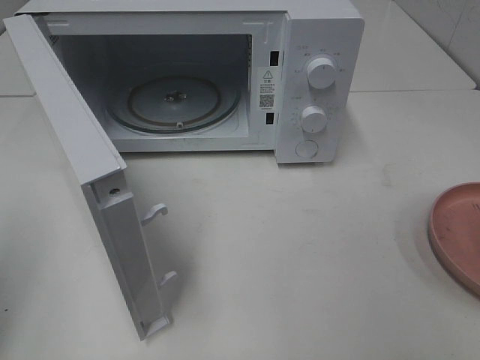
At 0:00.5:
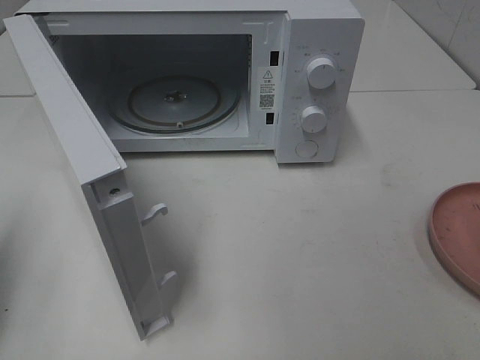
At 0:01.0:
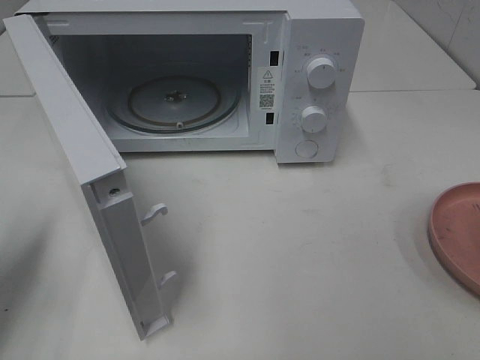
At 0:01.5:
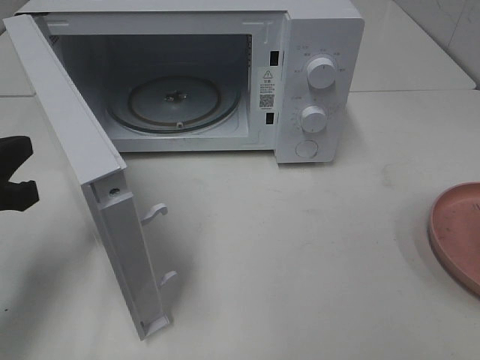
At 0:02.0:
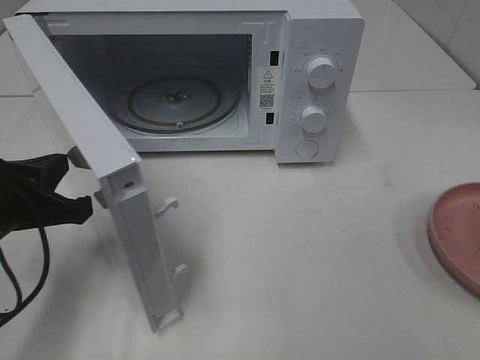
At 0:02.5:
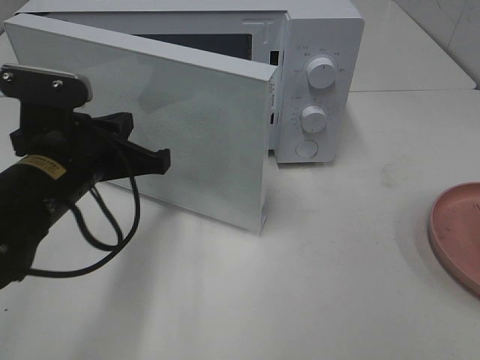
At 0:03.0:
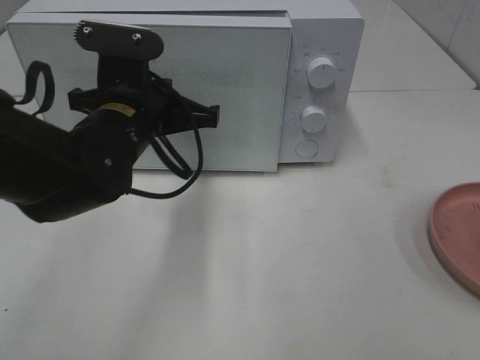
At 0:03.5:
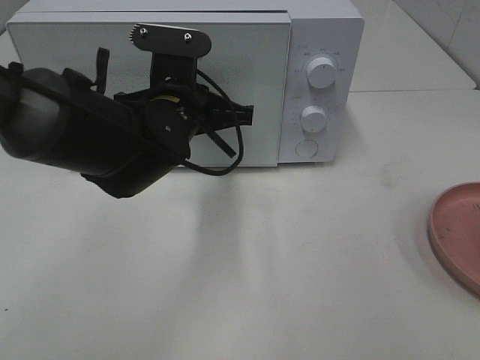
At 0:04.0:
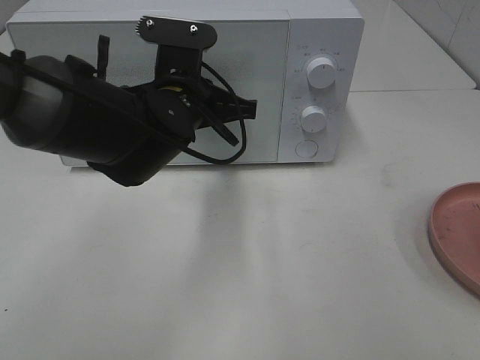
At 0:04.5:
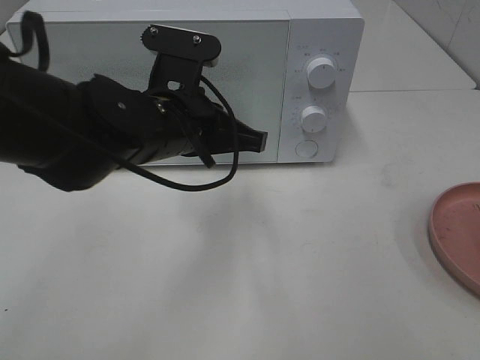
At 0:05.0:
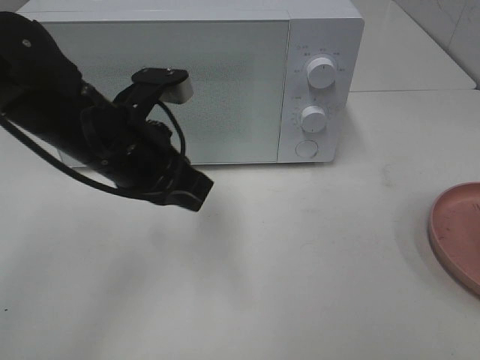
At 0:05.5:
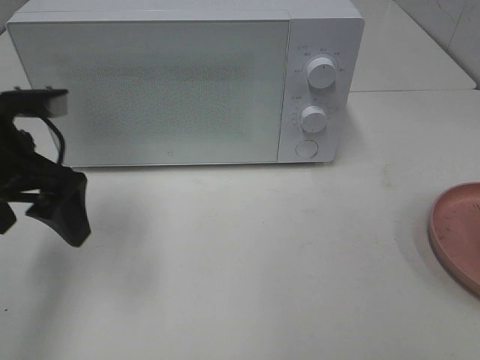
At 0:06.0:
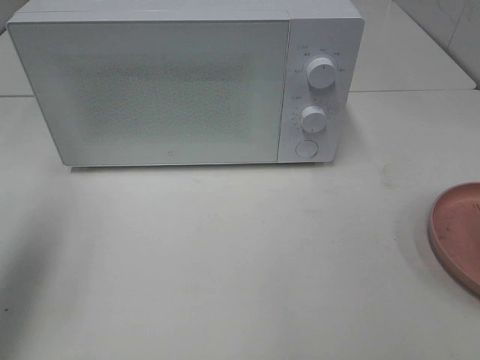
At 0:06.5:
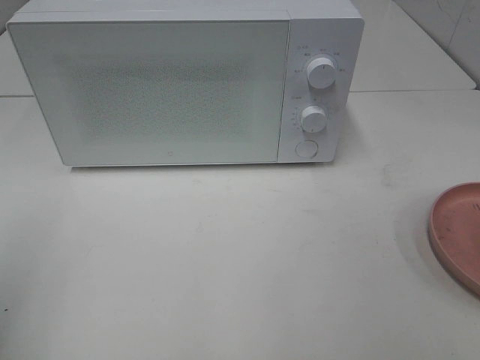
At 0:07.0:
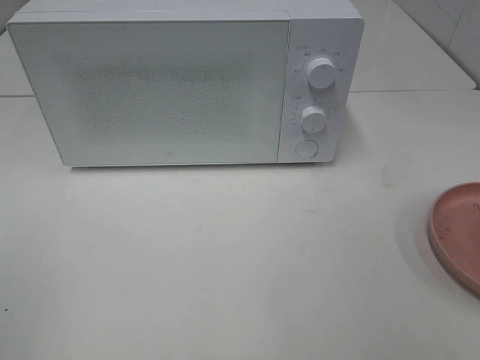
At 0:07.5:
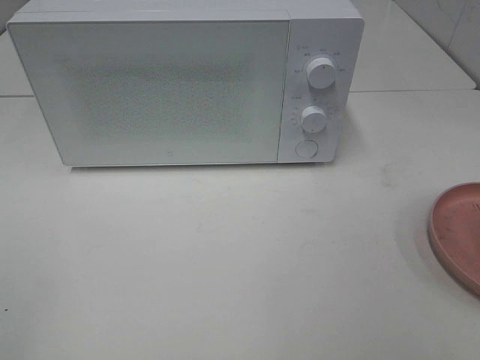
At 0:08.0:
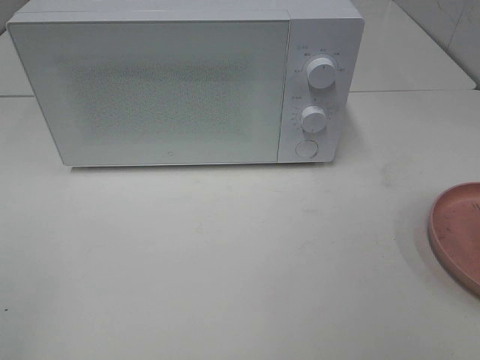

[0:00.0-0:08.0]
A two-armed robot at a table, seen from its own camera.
Task of the whole recording: Heat the burger.
Step, 0:00.0 to 0:04.5: Left hand: close the microwave door.
0:00.0 to 0:02.0: The left gripper travels downward, to the right and forward by about 20 cm.
0:02.0 to 0:04.0: The left gripper travels to the right and forward by approximately 20 cm.
0:04.0 to 0:06.0: The left gripper travels to the left, backward and upward by roughly 30 cm, and opens its fingers.
0:06.0 to 0:08.0: The left gripper goes approximately 20 cm backward.

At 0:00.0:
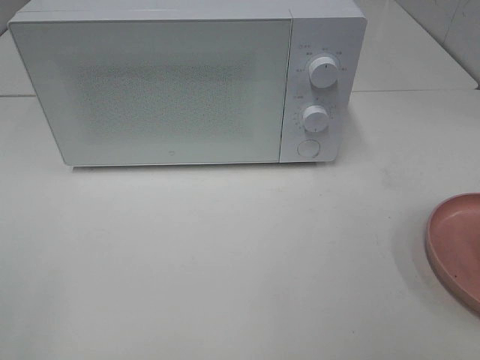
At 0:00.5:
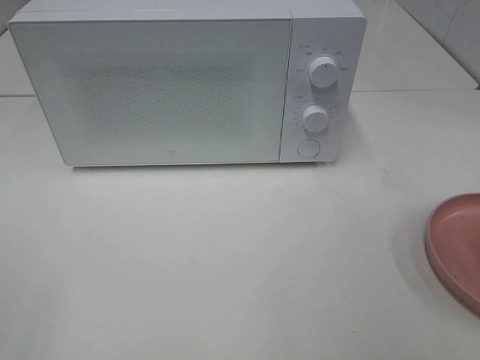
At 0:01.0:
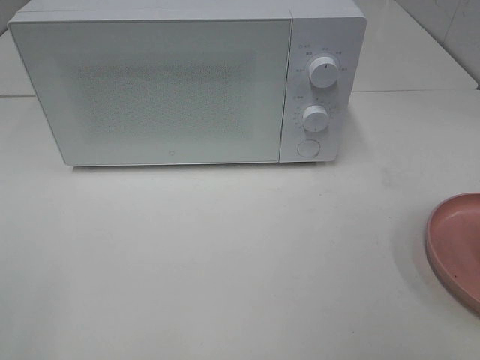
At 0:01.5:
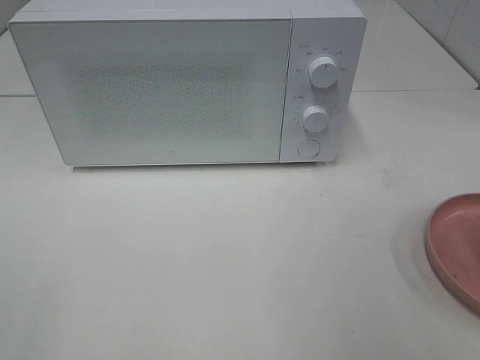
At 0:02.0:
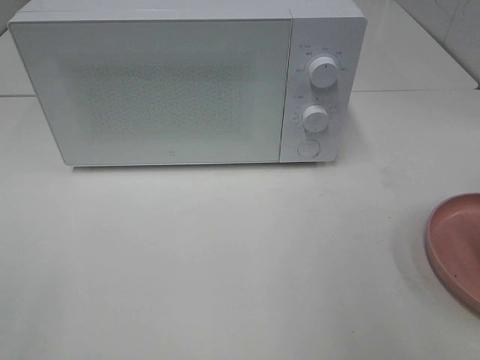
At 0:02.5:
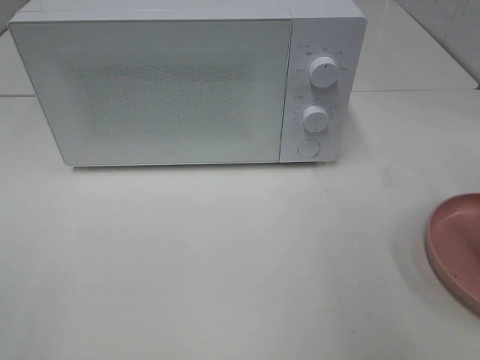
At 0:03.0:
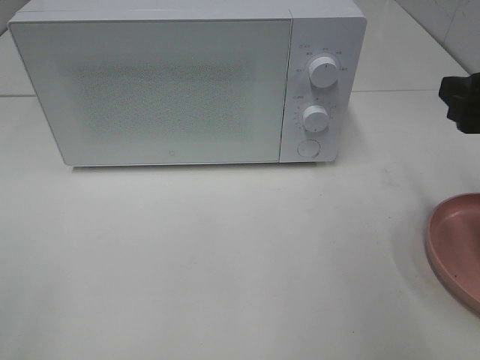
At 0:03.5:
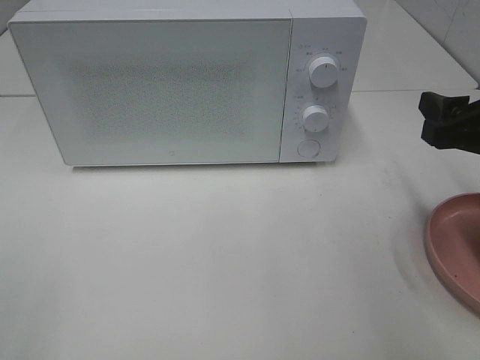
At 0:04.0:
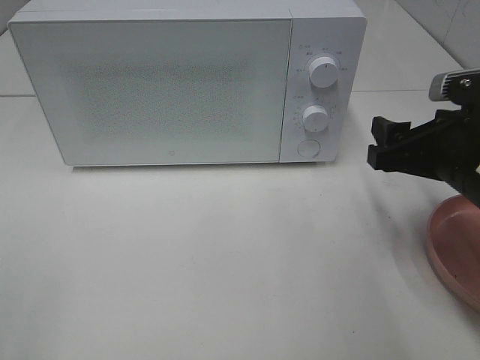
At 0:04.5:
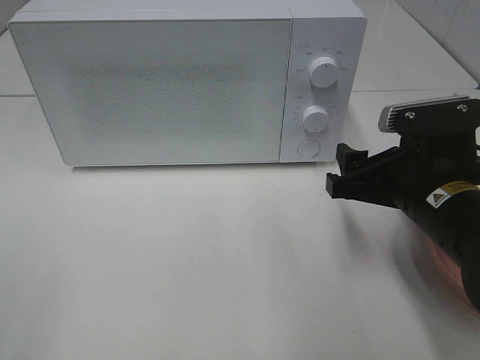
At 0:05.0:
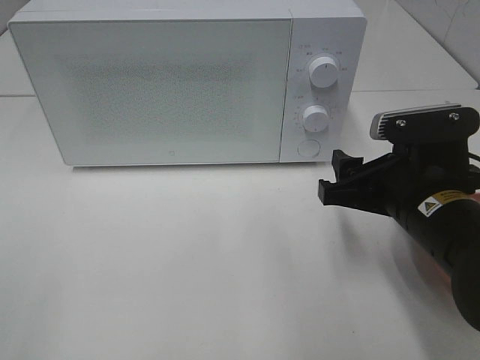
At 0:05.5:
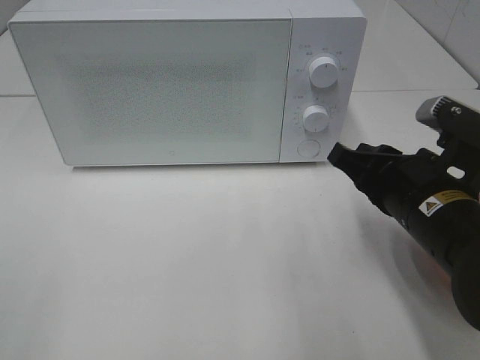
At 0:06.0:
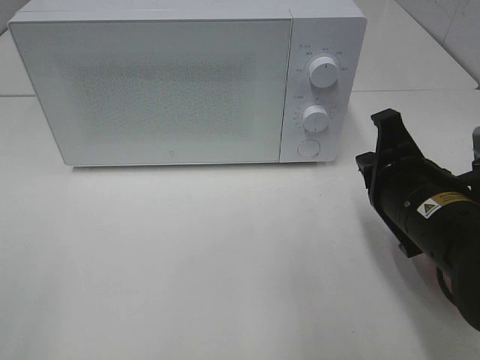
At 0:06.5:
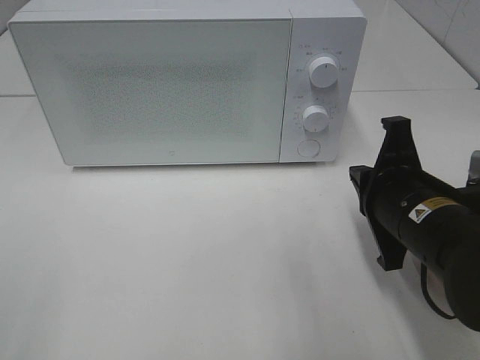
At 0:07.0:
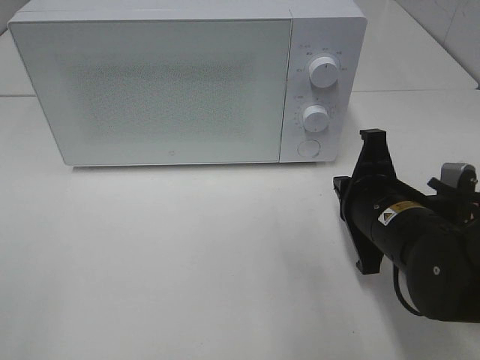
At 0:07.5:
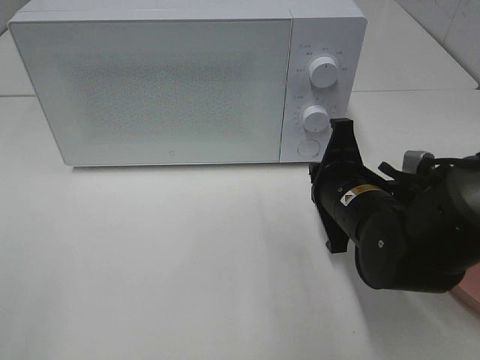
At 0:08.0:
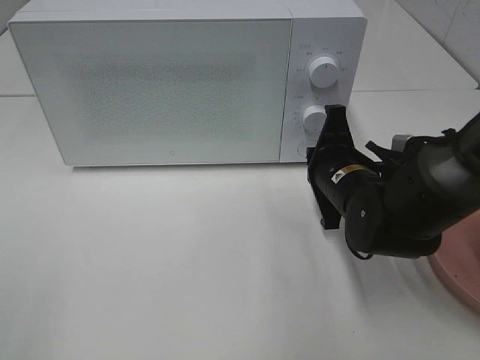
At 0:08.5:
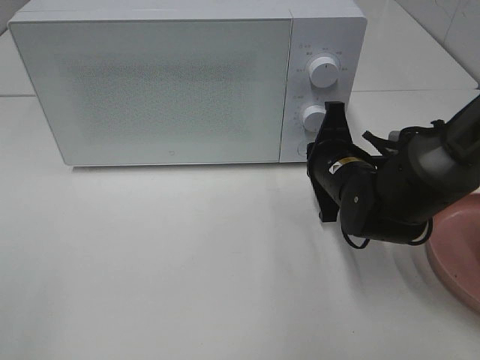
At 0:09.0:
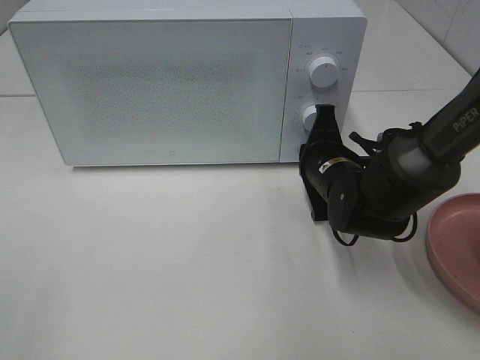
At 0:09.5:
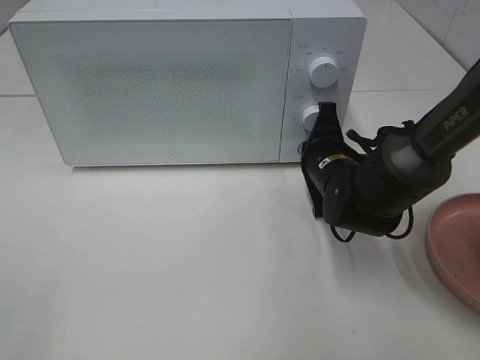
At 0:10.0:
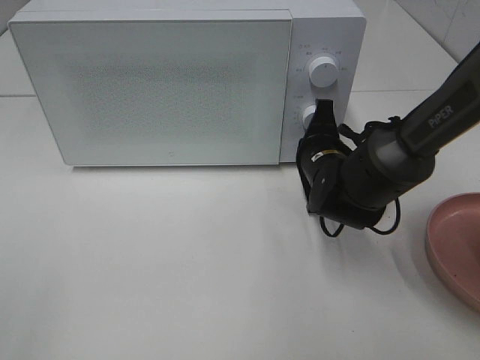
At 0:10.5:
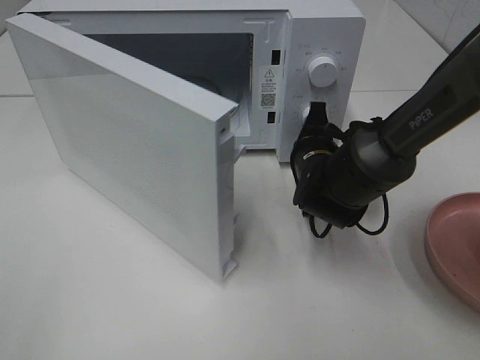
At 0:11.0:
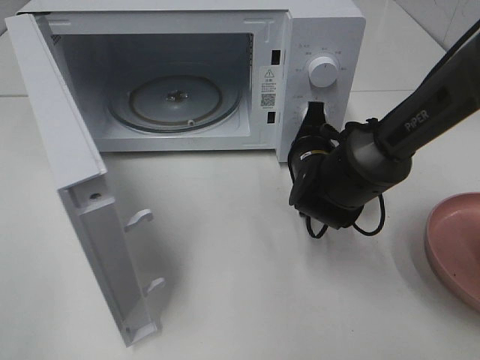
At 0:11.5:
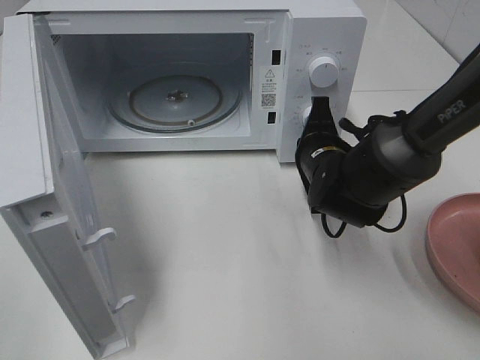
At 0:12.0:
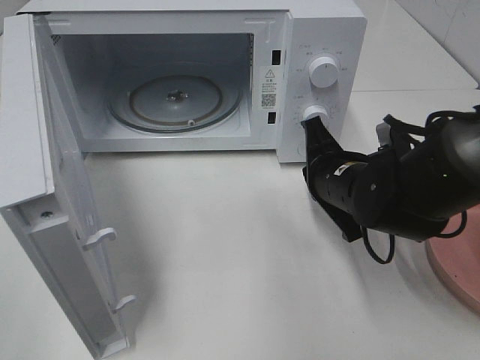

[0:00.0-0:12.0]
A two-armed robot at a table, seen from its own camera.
Task of the whole recording: Heat the burger.
Step, 0:00.0 to 0:11.5: Right hand: press the switch.
0:02.0 to 0:04.0: The right gripper travels downward and forward by approximately 20 cm.
0:04.0 to 0:06.0: The right gripper is displaced to the left by roughly 5 cm, and closes up.
0:06.0 to 0:08.0: The right gripper is displaced forward and downward by approximately 10 cm.
0:08.0 to 0:10.0: The right gripper moves forward, some 5 cm.
0:10.0 to 0:12.0: The right gripper is displaced backward by some 5 cm.

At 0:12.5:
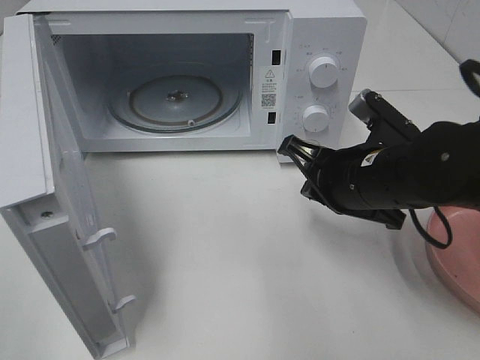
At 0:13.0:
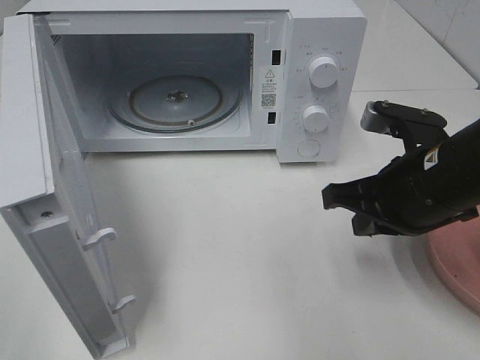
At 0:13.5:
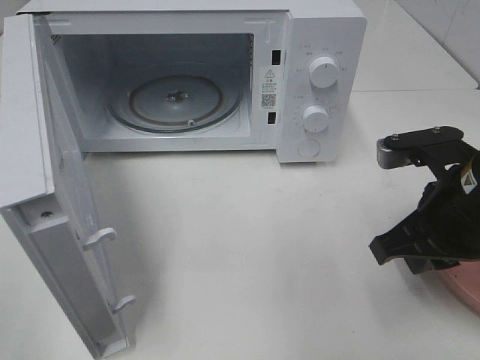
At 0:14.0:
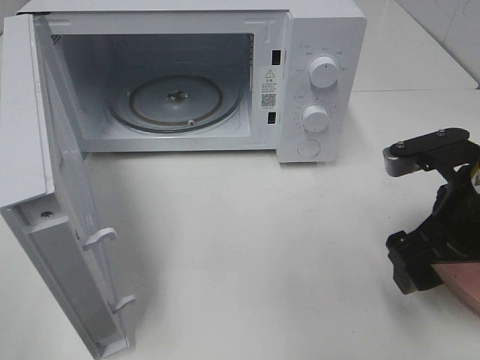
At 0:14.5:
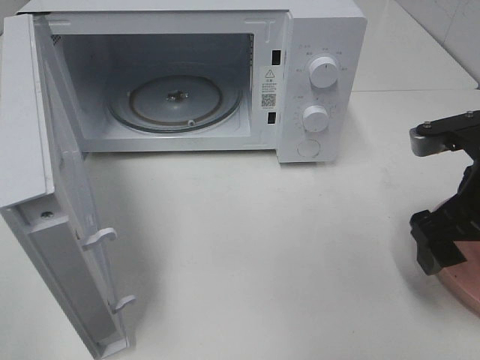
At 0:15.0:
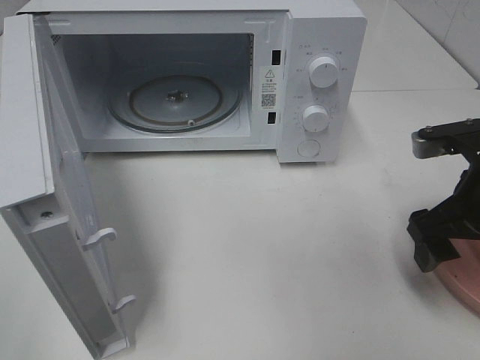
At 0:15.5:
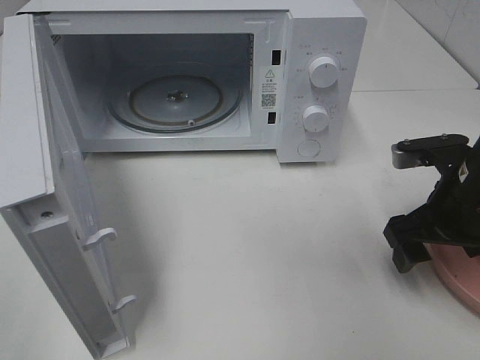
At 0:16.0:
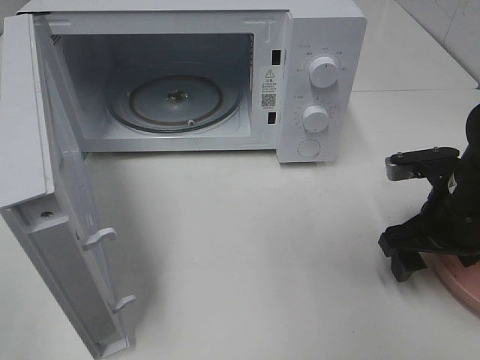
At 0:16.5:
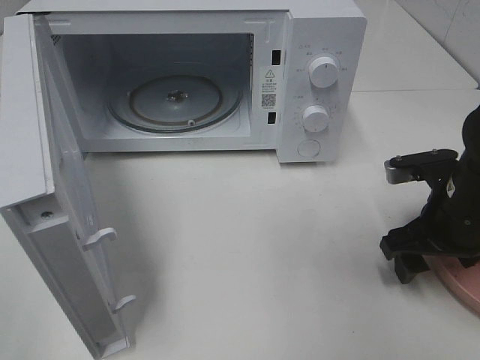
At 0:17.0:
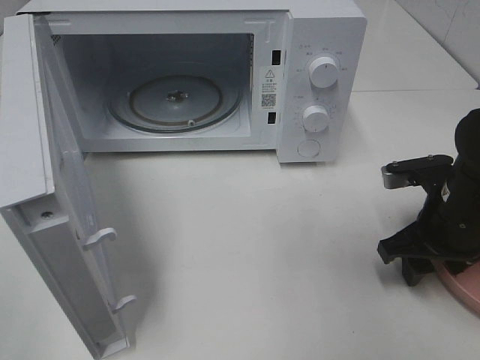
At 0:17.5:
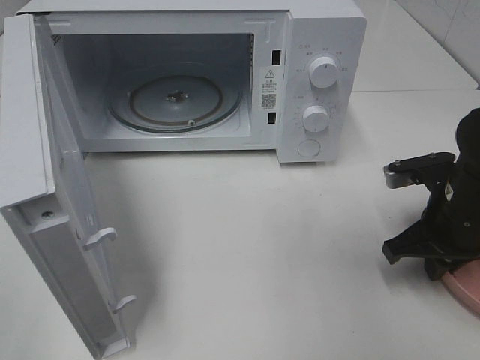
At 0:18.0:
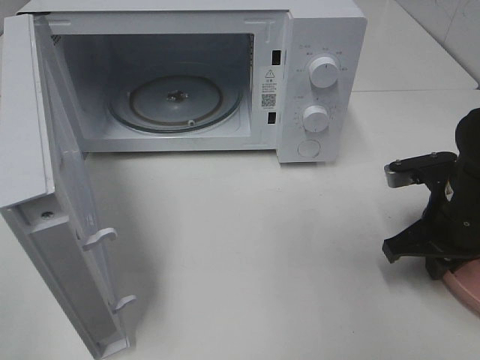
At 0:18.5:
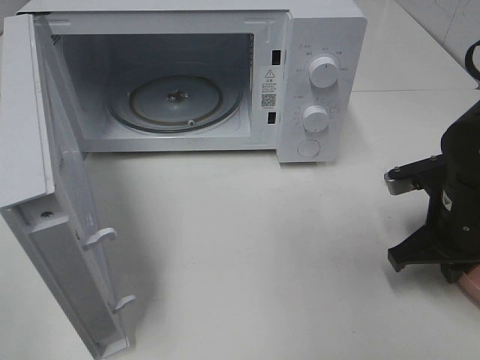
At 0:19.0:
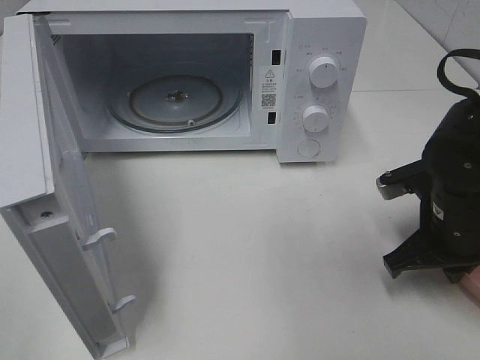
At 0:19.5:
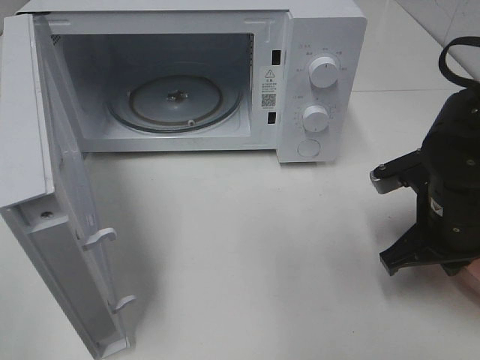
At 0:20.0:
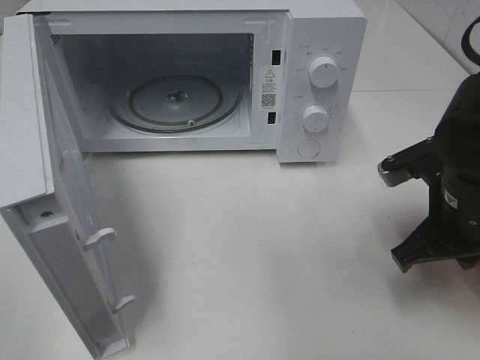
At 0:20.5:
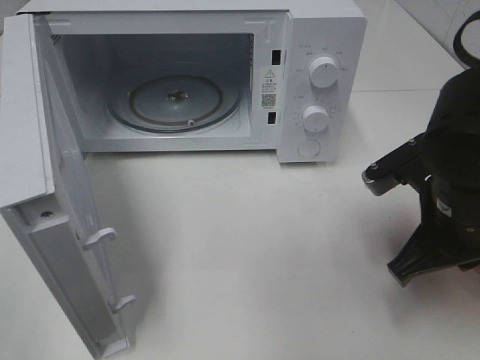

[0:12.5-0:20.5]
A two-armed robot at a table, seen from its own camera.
Task of the whole recording: Heat the burger.
Step, 0:12.5 to 0:18.0: Right hand: grab the plate with the hamburger.
0:12.5 to 0:14.5: The right gripper moves to the right, approximately 10 cm, and opens its fingers.
0:14.5 to 0:16.5: The right gripper travels downward by about 10 cm.
0:16.5 to 0:18.5: The right gripper closes up.
0:18.5 to 0:20.5: The right gripper heads upward, covering about 5 cm.
